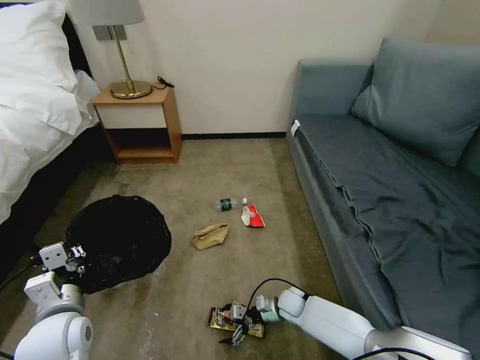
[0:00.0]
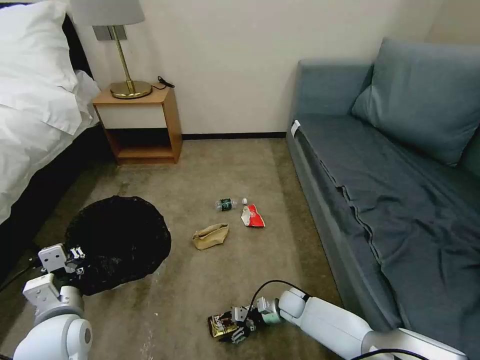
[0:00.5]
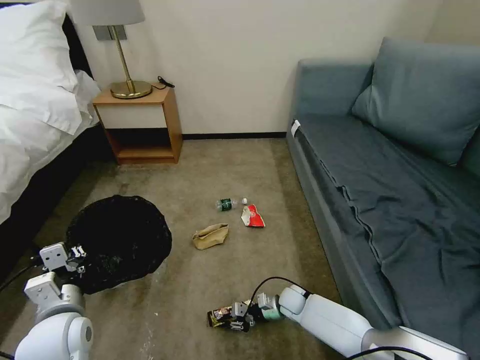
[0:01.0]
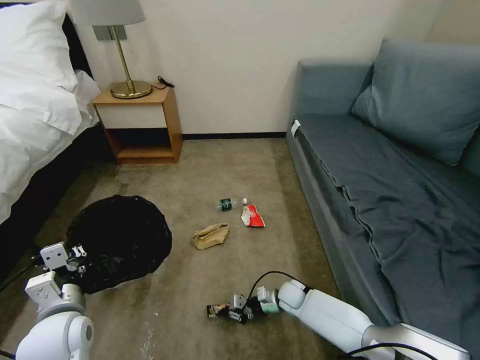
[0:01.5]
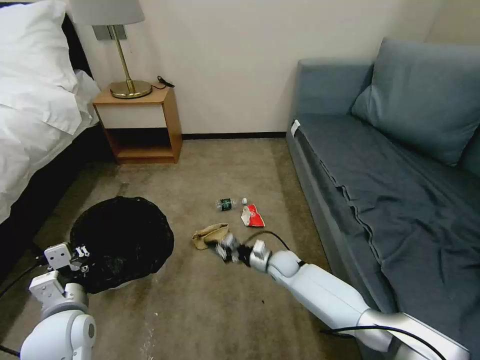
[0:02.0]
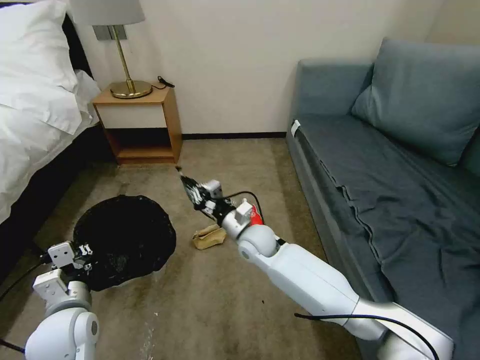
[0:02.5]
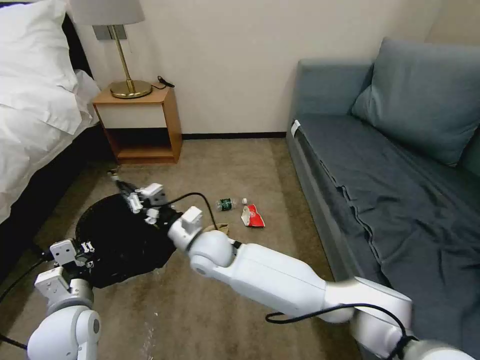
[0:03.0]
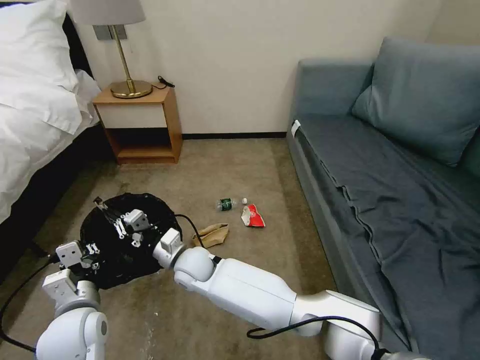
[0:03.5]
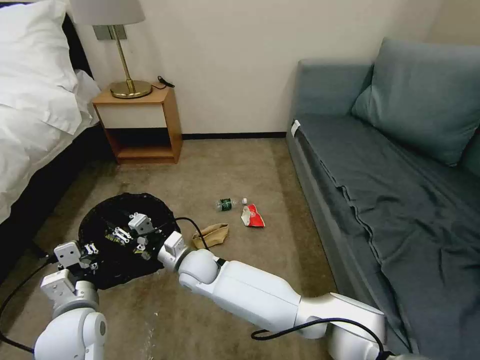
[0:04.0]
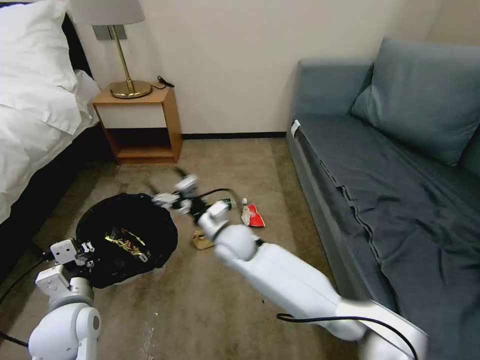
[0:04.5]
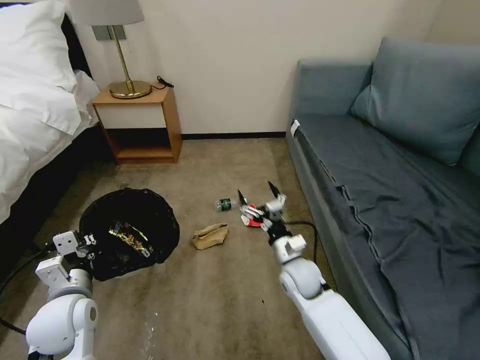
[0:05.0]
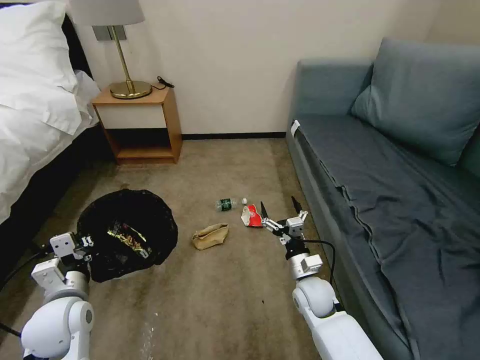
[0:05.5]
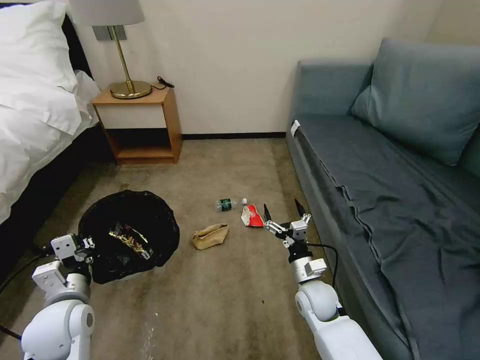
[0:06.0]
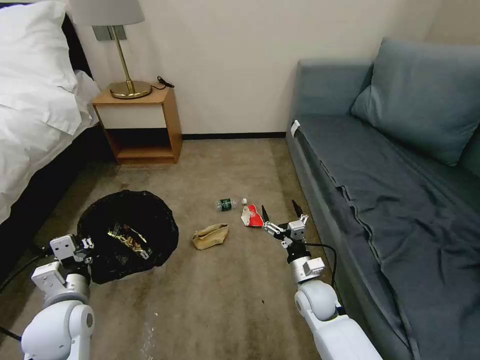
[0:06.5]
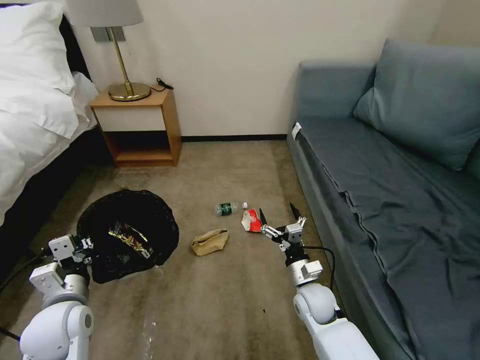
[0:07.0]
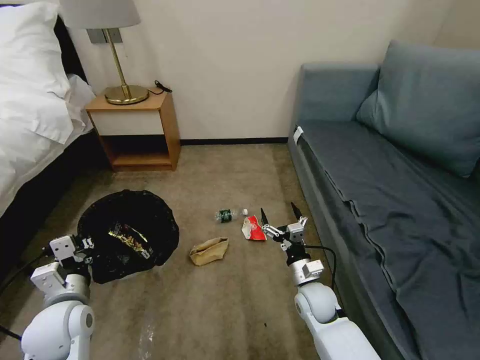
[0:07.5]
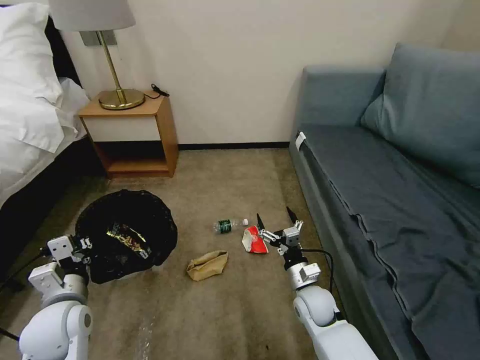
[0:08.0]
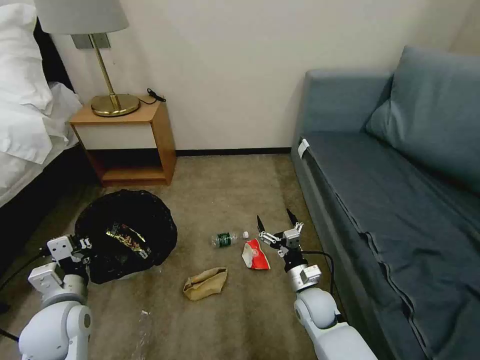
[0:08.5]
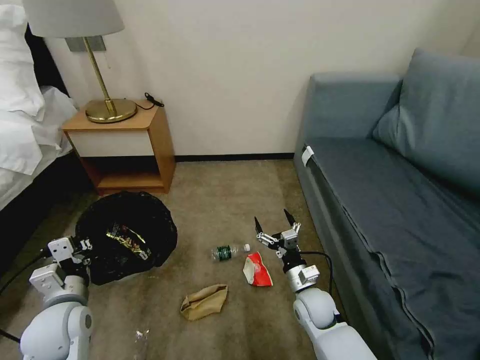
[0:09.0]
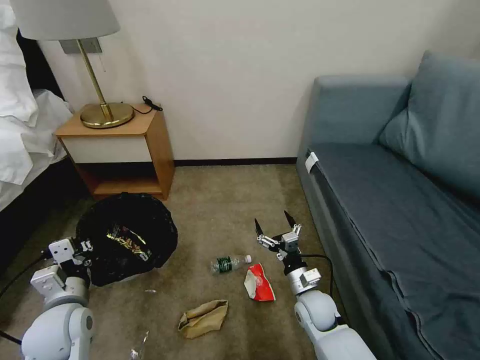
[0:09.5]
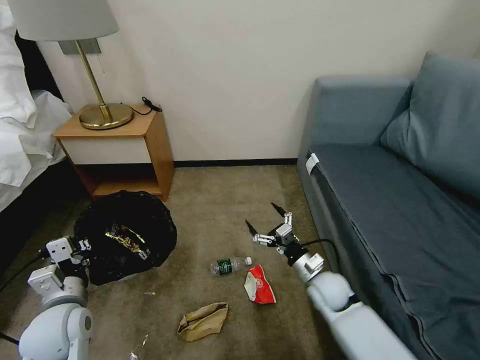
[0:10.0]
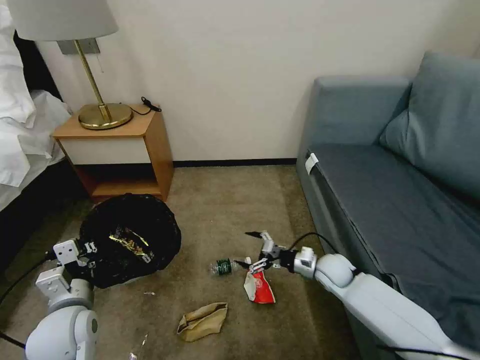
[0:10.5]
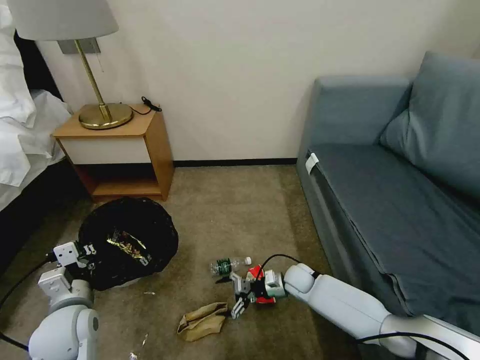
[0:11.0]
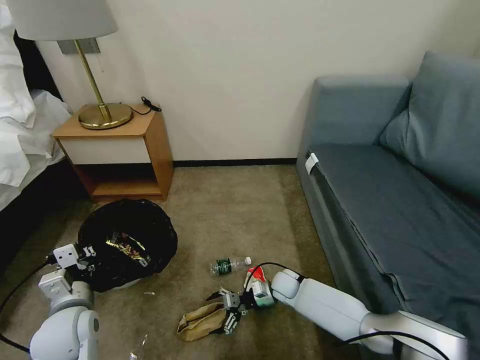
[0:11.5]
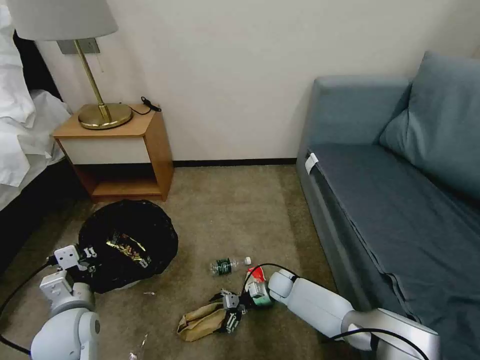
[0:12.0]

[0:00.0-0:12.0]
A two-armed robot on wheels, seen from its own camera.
Task of the whole recording: Pick up the trash bin, then pick up the garbage on the floor and place it into the trash bin.
0:00.0 to 0:02.0: The right gripper heads upward and forward, covering approximately 15 cm, and closes.
0:02.0 to 0:04.0: The right gripper shifts about 25 cm to the left and upward.
0:04.0 to 0:06.0: The right gripper is displaced to the right by some 30 cm, and opens.
0:10.0 to 0:12.0: The right gripper heads downward, forward and to the left, covering about 15 cm.

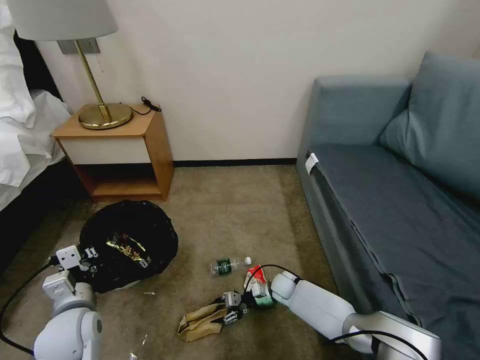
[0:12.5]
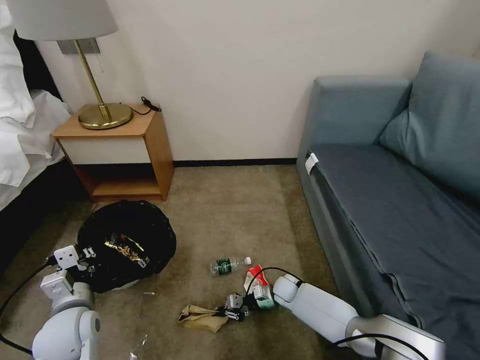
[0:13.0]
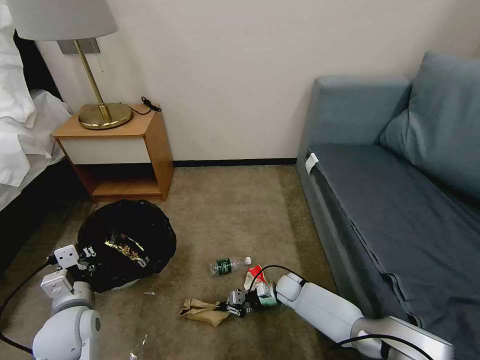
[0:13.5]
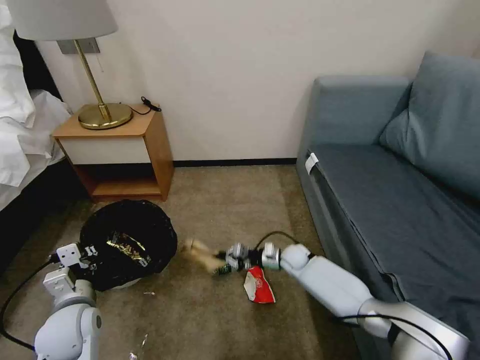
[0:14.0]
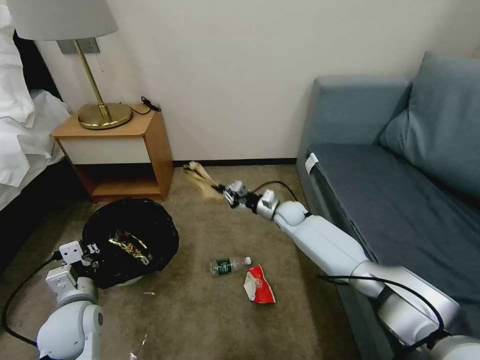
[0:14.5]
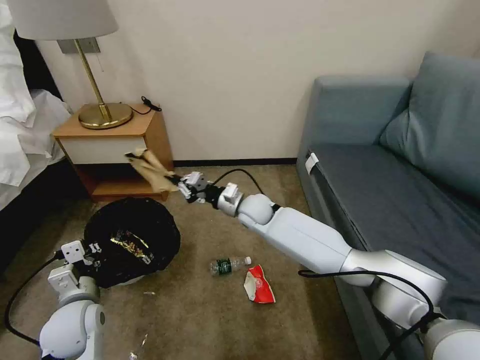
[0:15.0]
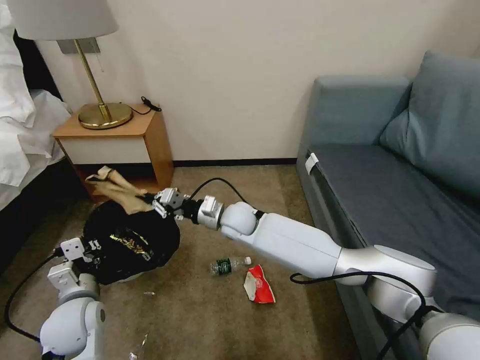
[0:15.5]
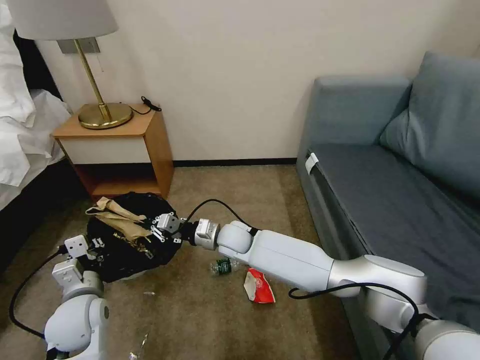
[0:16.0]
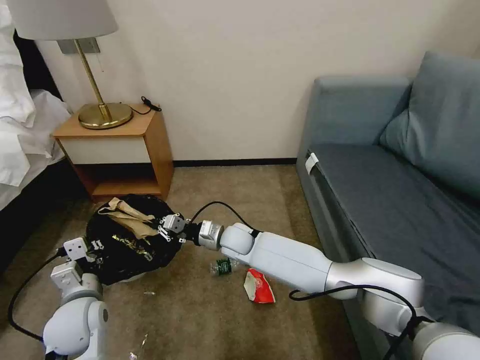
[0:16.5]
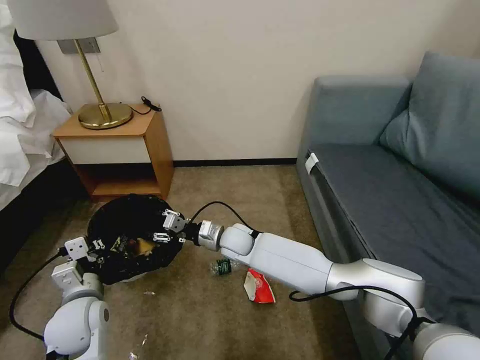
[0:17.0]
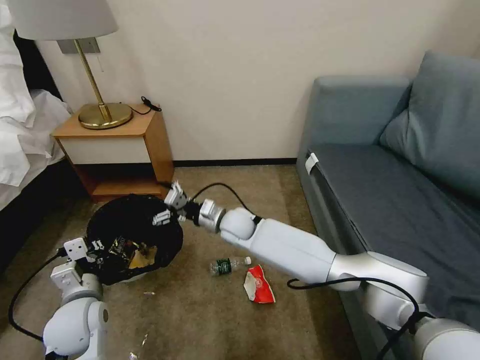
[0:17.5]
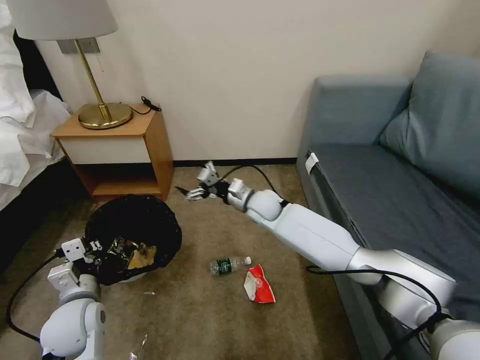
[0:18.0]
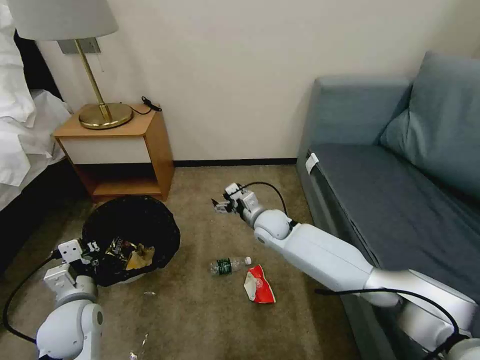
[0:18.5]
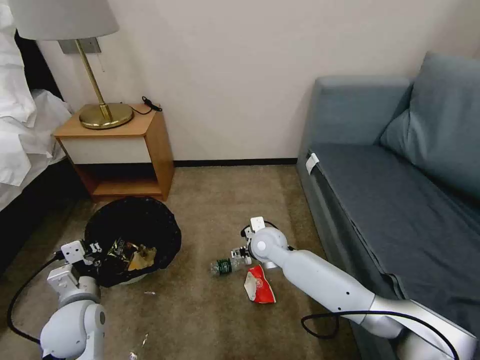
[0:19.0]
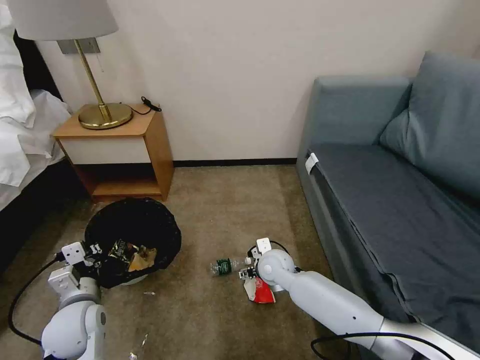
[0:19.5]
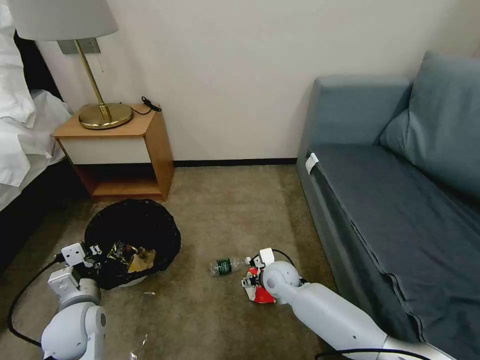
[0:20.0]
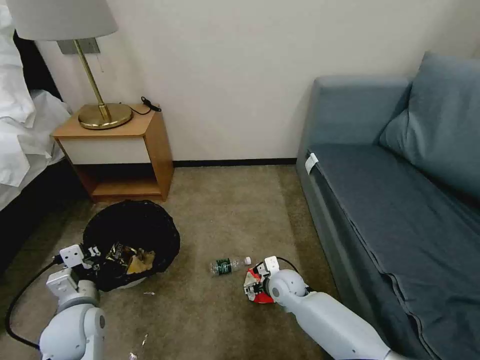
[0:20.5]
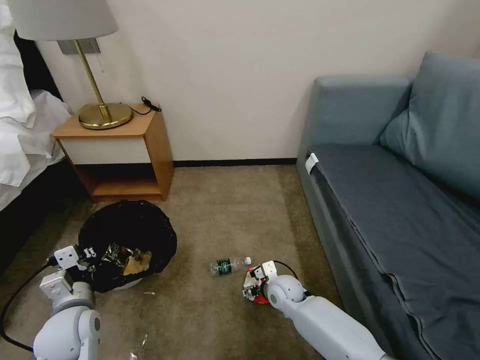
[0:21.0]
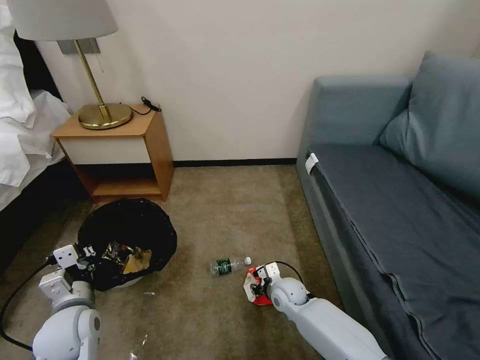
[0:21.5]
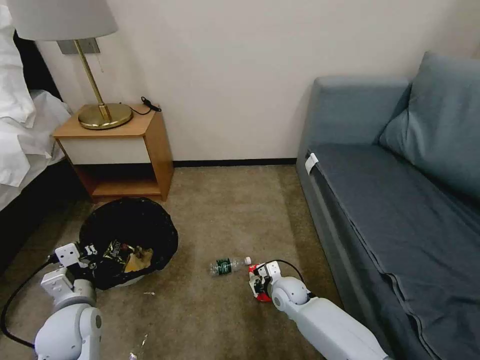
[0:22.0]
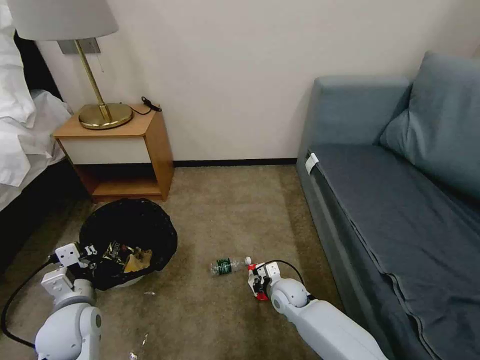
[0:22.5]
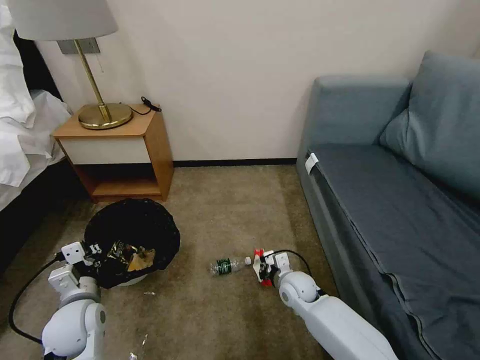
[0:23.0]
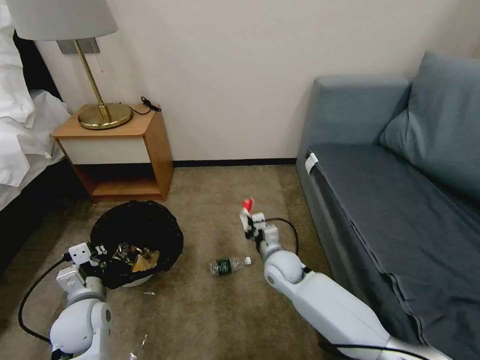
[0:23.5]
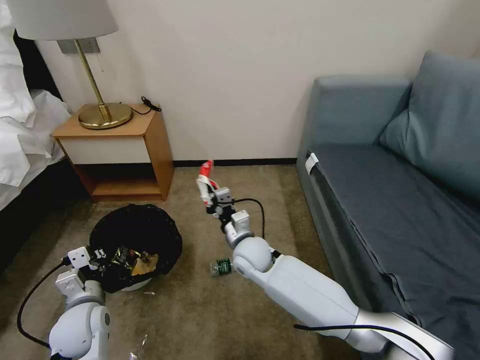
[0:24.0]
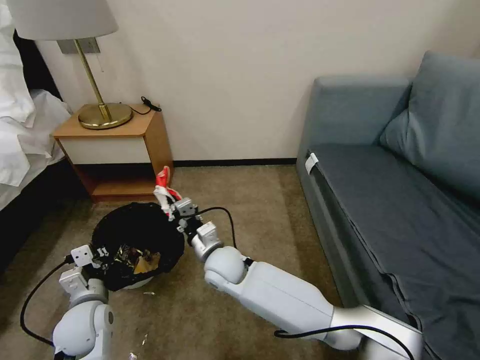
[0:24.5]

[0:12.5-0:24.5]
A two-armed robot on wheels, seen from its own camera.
Task of the whole recording: Pick up the trash bin, then pick up the garbage on the floor and place it into the trash bin.
0:12.5 to 0:14.5: The right gripper goes about 25 cm upward and forward, and closes.
0:14.5 to 0:16.5: The right gripper moves to the left and backward, approximately 20 cm.
0:16.5 to 0:18.5: The right gripper is displaced to the right by roughly 10 cm, and opens.
0:18.5 to 0:20.5: The right gripper is displaced downward and backward by some 15 cm.
0:20.5 to 0:22.5: The right gripper closes its fingers.
0:22.5 to 0:24.5: The right gripper heads to the left and upward, covering about 25 cm.

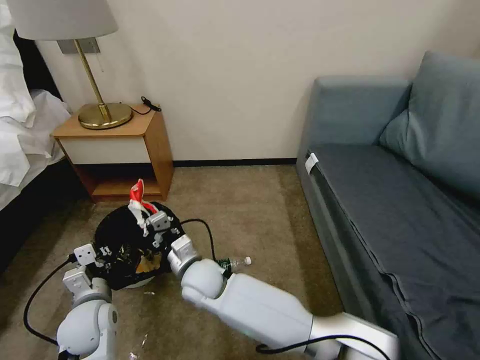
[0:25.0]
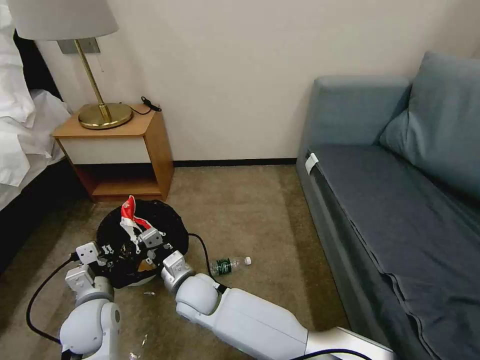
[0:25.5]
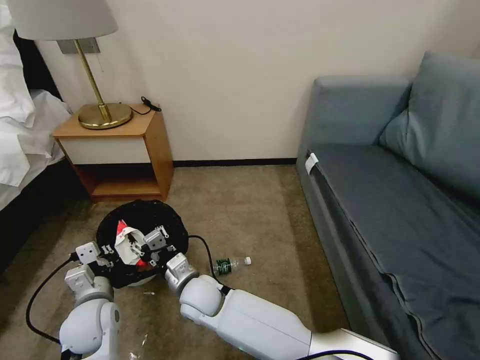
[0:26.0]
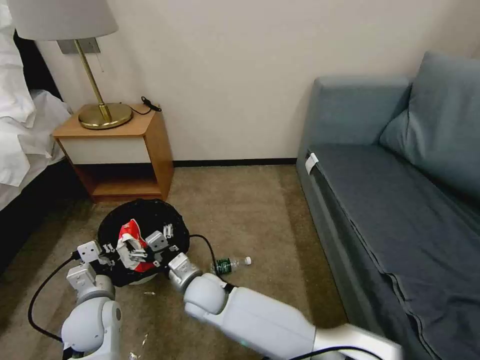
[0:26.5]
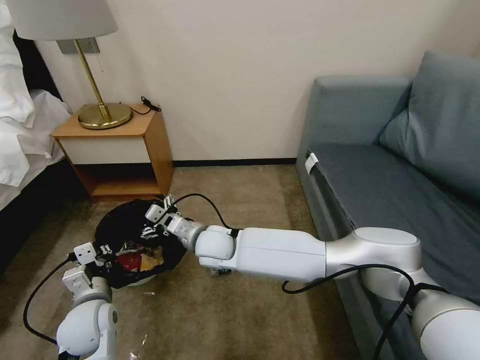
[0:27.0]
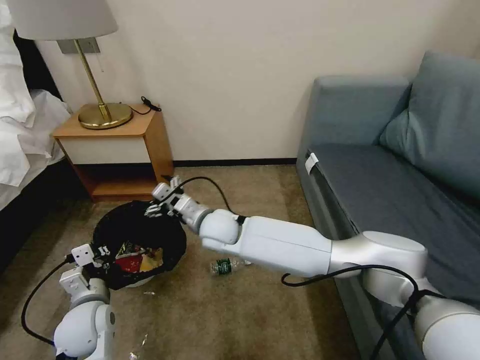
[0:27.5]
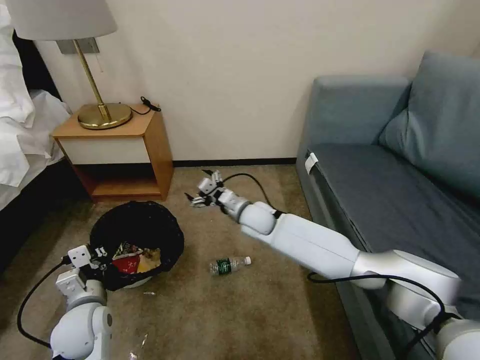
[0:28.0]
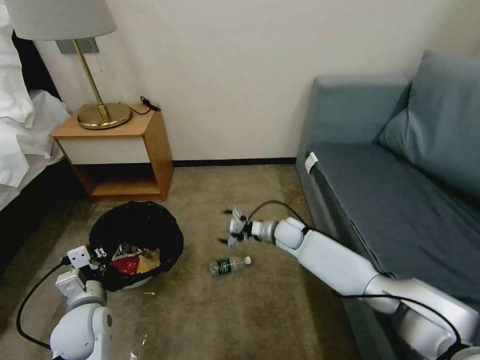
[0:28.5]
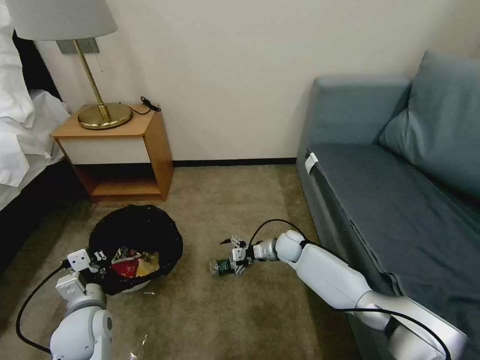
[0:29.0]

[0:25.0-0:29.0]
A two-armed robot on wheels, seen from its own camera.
Task of the whole recording: Pick up the trash bin, then pick up the garbage on the floor and place it into the trash bin.
0:25.0 to 0:27.0: The right gripper shifts approximately 5 cm forward, and opens.
0:27.0 to 0:29.0: The right gripper travels to the right and downward by roughly 25 cm.
